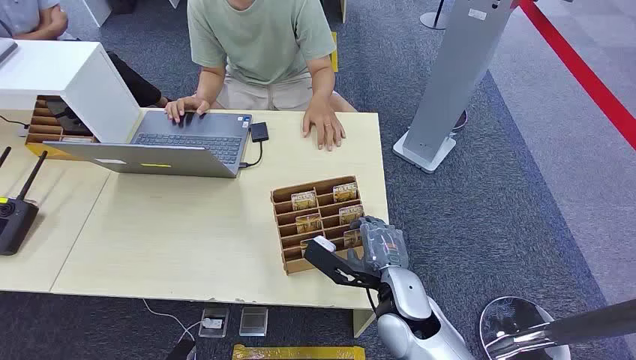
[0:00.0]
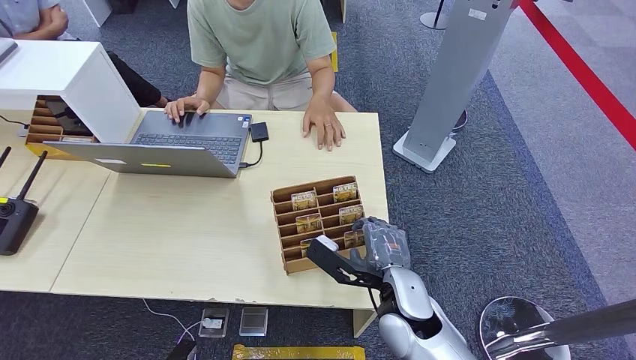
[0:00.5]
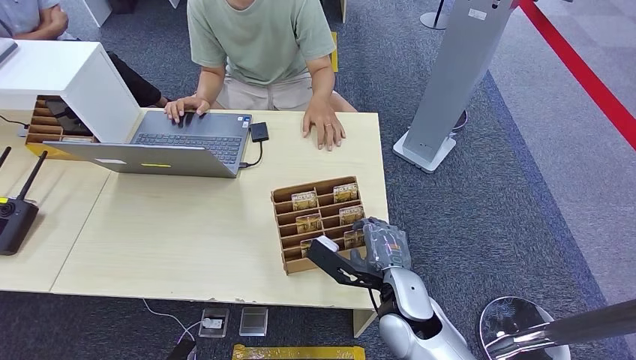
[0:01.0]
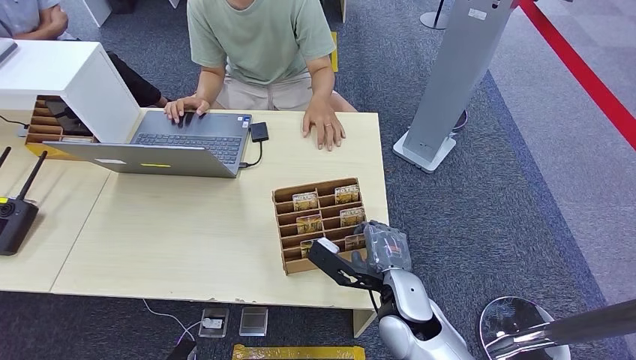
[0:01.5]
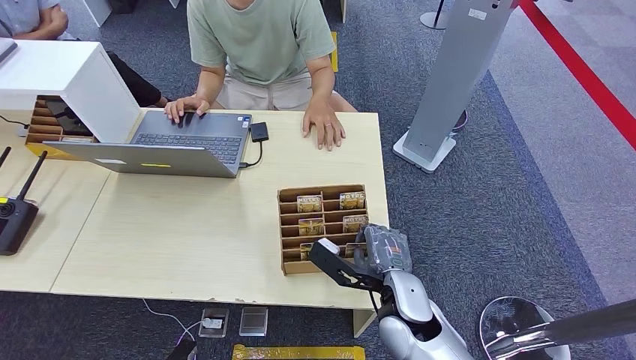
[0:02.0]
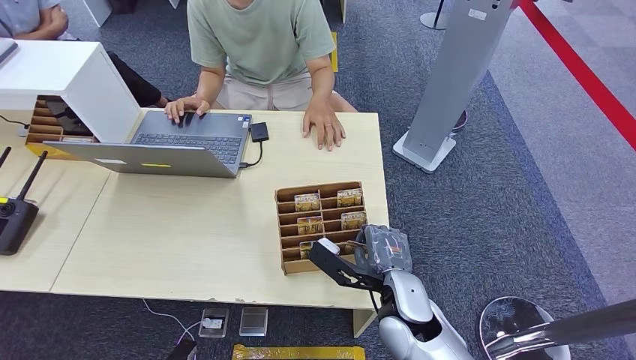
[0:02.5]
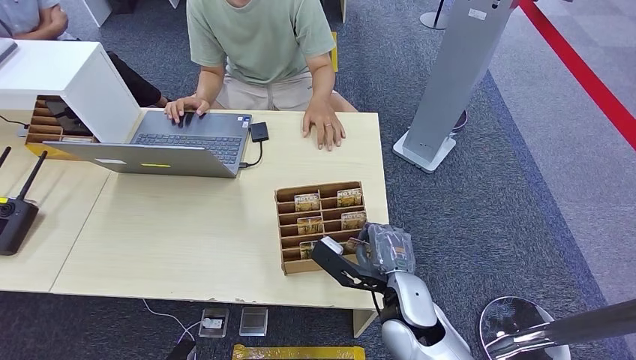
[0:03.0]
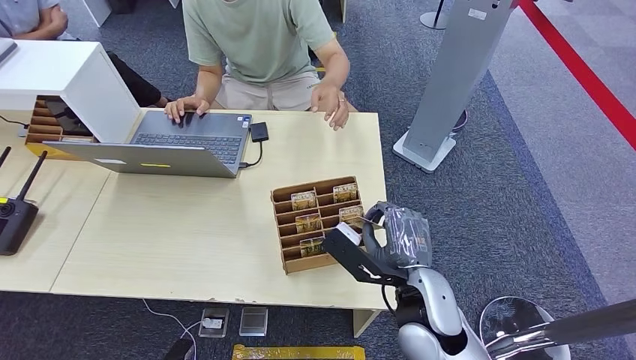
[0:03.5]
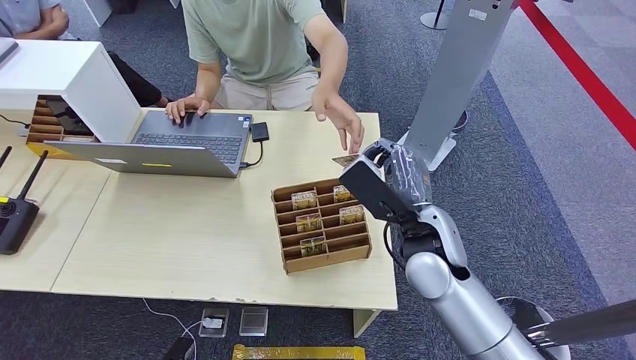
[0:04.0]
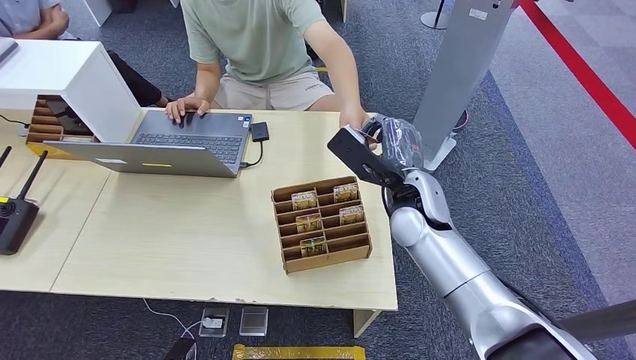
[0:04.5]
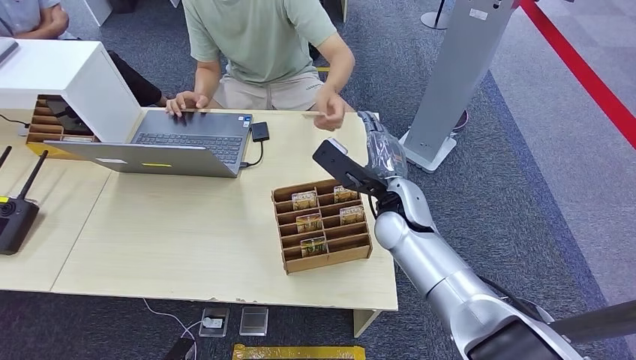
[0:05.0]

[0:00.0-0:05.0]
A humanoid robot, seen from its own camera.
Step, 0:00.0 to 0:03.0: Pick up the room card from the card holder.
Step, 0:04.5 to 0:05.0: Hand the room card to the target.
0:02.5 to 0:05.0: The right hand is displaced forward and upward by some 15 cm.
